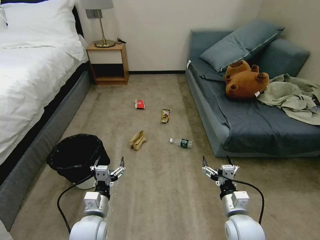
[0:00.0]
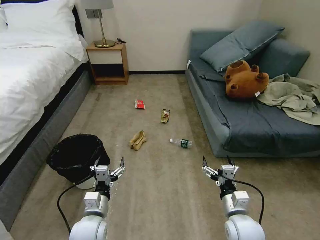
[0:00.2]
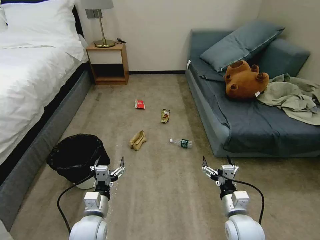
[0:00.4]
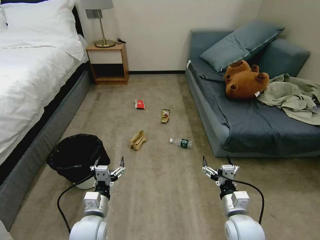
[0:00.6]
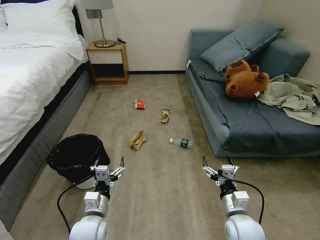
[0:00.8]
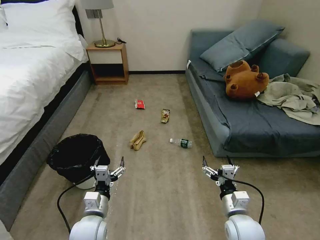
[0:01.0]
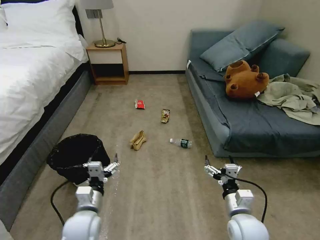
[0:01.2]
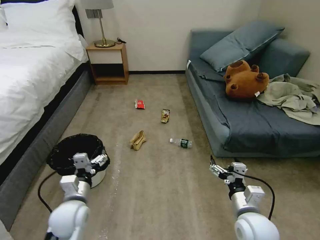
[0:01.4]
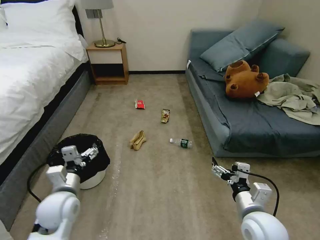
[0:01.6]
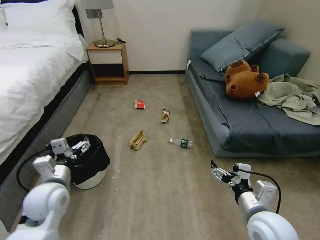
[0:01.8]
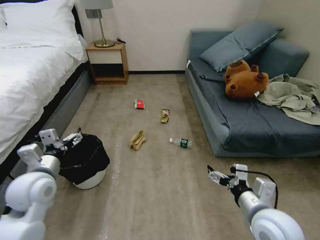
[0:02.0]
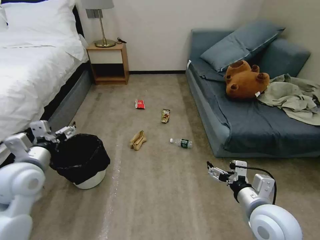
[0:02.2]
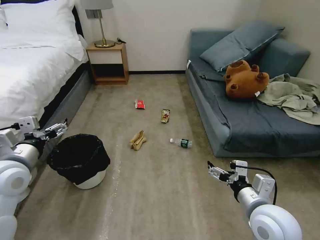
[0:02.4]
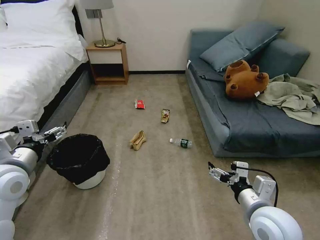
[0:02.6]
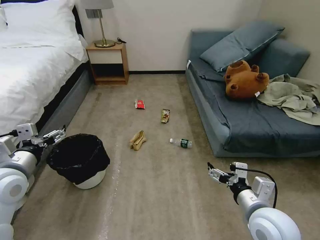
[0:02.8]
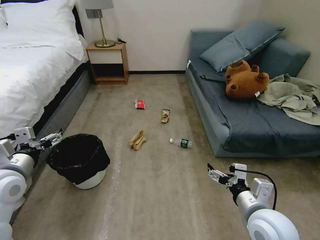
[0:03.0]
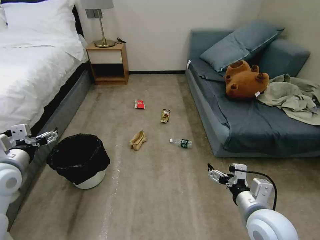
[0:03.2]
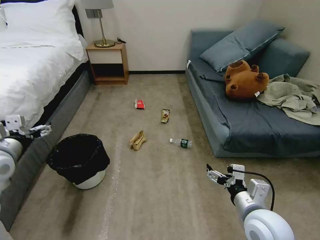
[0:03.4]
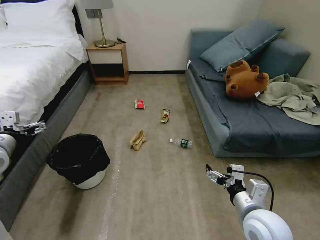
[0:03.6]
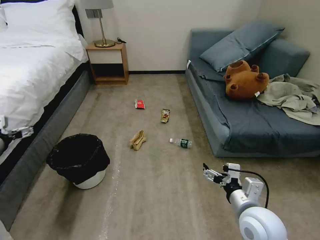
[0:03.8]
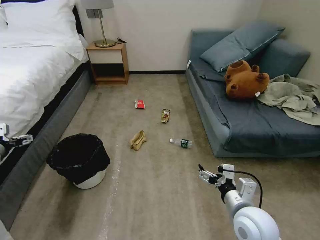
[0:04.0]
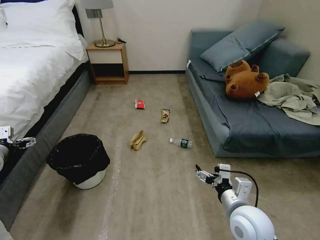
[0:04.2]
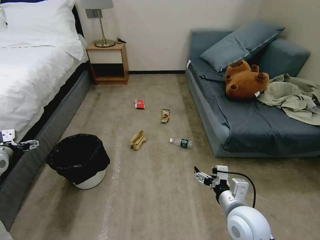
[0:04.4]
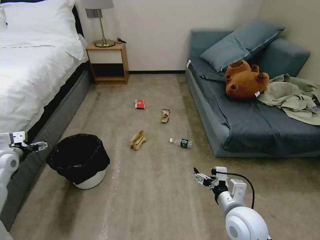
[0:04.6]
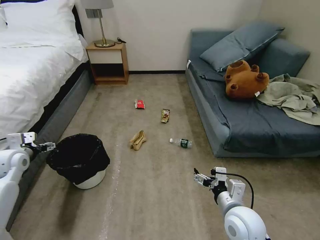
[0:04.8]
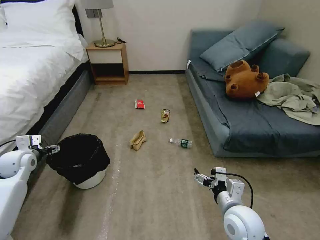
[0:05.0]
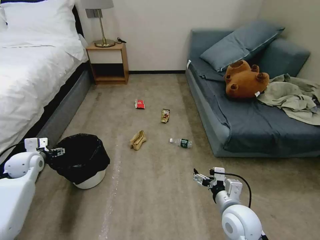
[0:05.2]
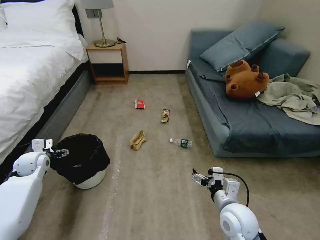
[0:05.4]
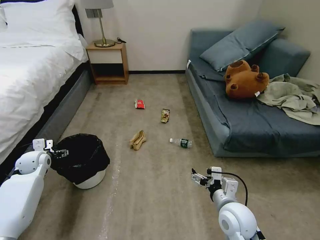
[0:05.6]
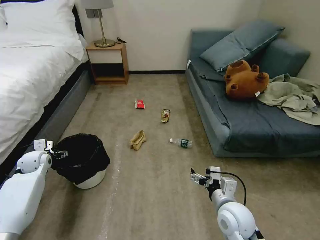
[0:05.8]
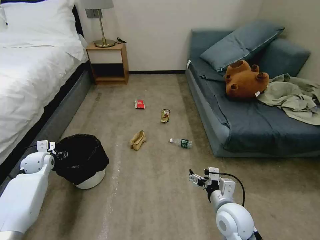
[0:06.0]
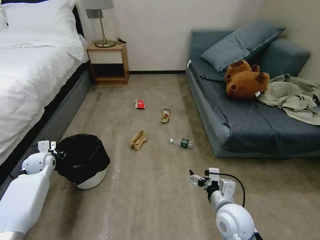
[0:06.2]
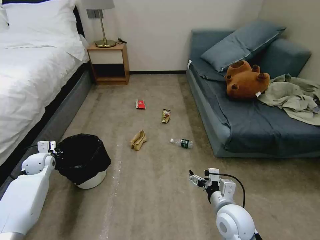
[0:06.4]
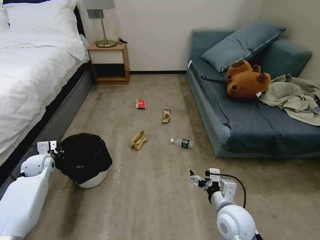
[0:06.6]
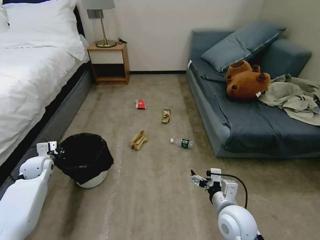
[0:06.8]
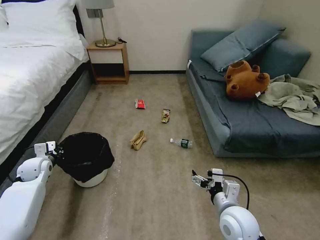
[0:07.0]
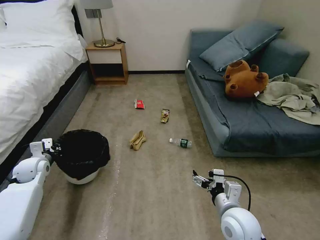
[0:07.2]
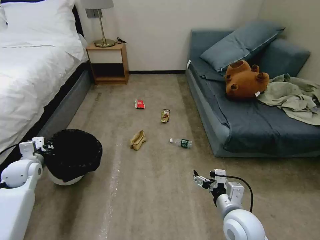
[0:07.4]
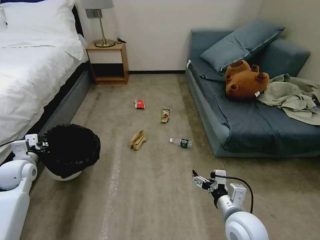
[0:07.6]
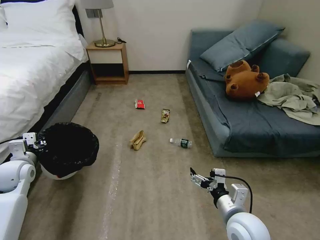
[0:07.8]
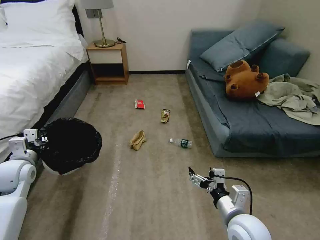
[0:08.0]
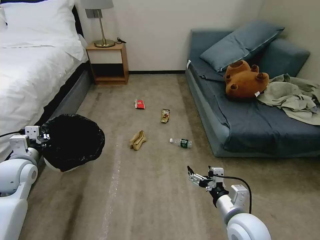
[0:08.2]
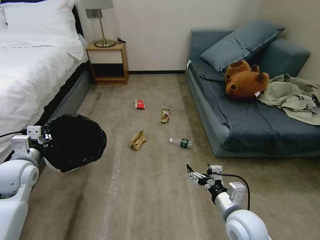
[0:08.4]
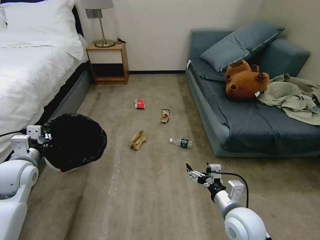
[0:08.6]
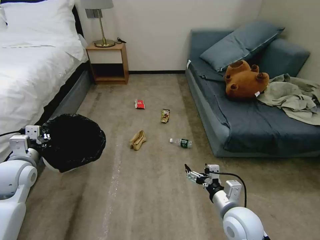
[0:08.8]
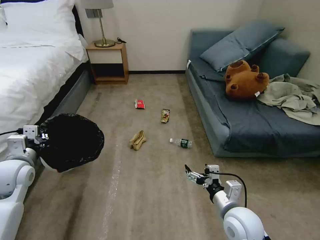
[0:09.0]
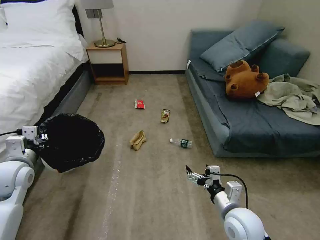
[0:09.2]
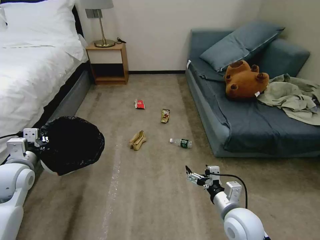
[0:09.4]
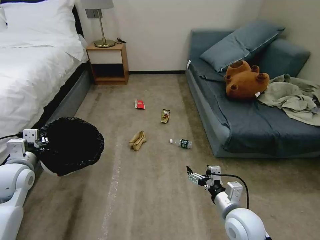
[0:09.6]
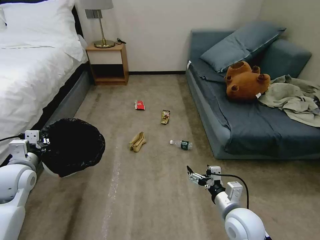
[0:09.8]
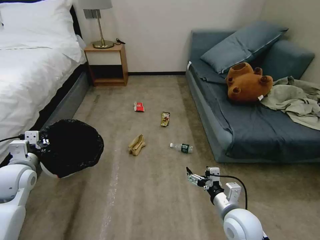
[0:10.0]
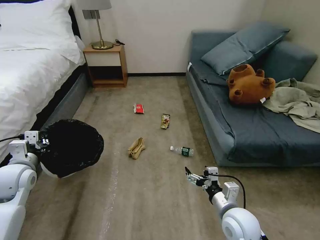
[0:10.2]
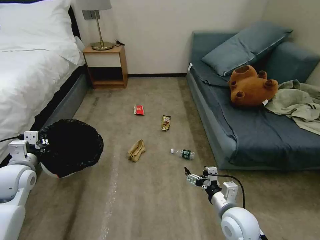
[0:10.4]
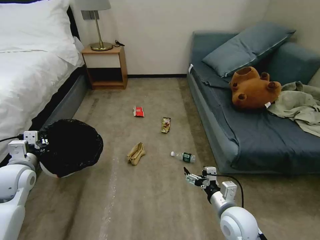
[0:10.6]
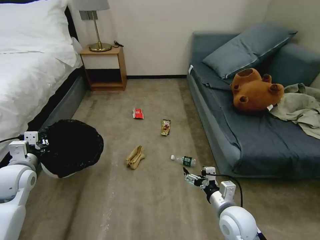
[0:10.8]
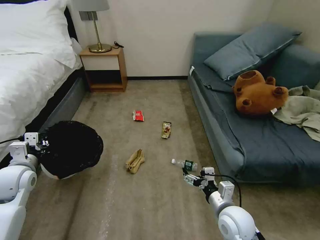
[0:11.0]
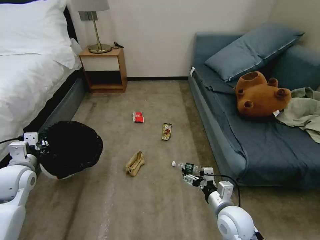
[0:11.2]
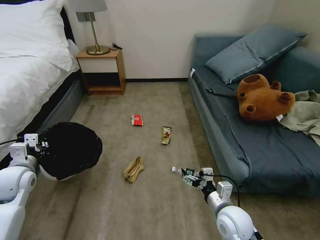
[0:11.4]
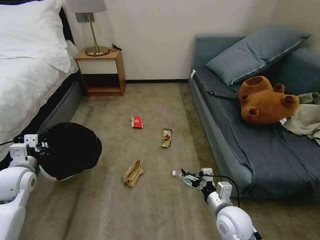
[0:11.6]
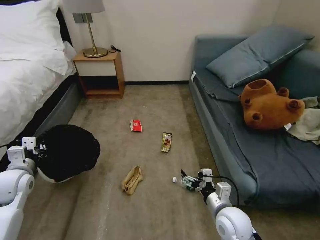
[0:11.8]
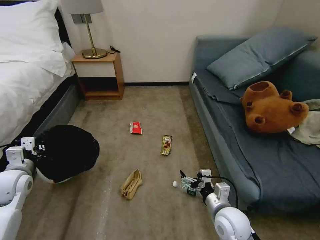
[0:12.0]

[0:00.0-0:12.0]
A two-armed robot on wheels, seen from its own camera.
Task of the whole recording: Pick up the trash bin, then pick up the garbage on the floor and place it into the trash bin.
0:01.6 to 0:03.0: The left gripper travels upward and to the left by approximately 15 cm.
0:03.0 to 0:04.4: The right gripper moves roughly 5 cm. The left gripper goes approximately 15 cm to the left and forward.
0:04.4 to 0:06.0: The left gripper shifts approximately 15 cm downward and forward.
0:06.0 to 0:07.6: The left gripper shifts about 10 cm backward and upward, and closes up.
0:07.6 to 0:09.0: The left gripper moves upward and to the right, roughly 10 cm.

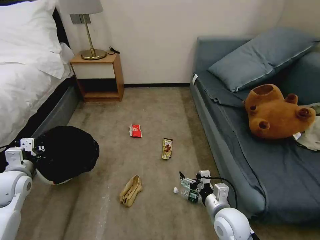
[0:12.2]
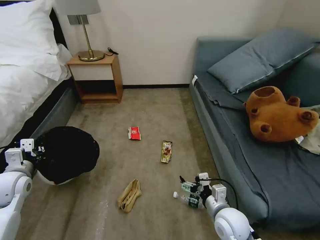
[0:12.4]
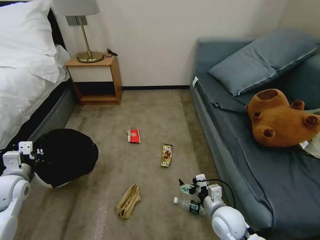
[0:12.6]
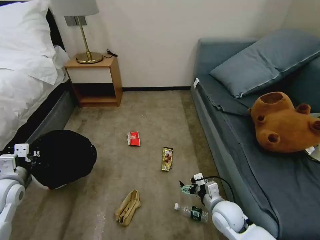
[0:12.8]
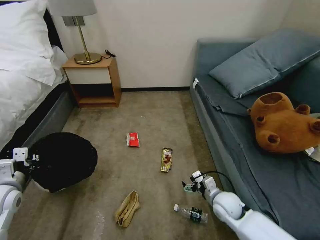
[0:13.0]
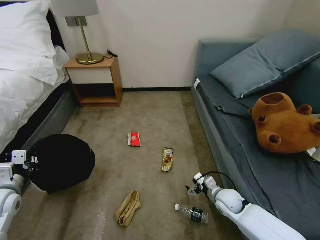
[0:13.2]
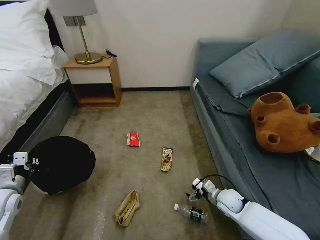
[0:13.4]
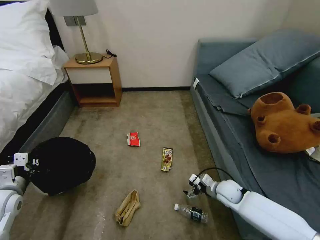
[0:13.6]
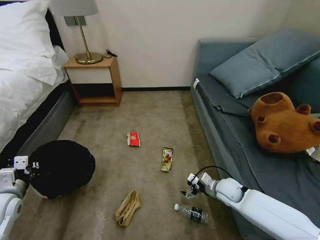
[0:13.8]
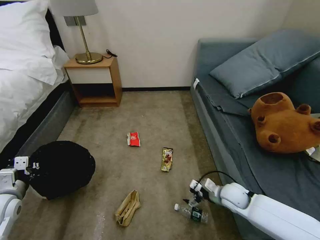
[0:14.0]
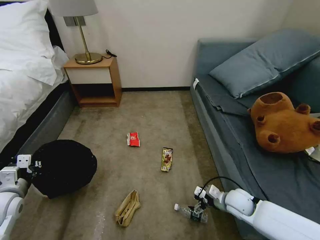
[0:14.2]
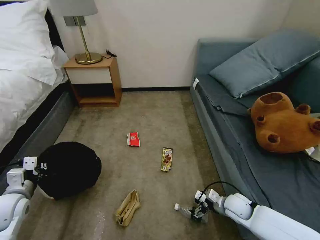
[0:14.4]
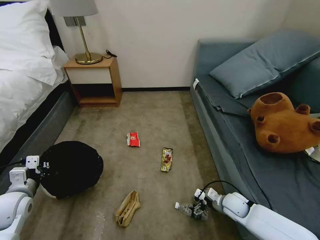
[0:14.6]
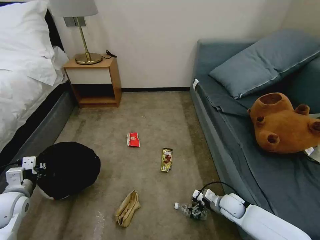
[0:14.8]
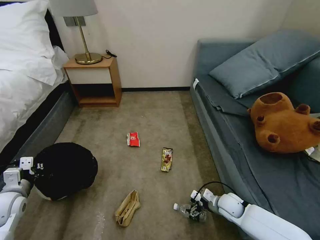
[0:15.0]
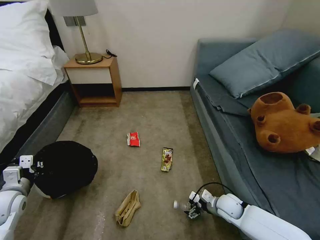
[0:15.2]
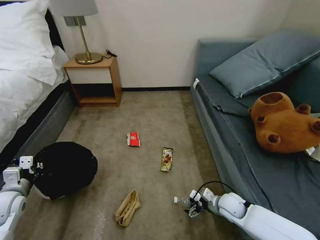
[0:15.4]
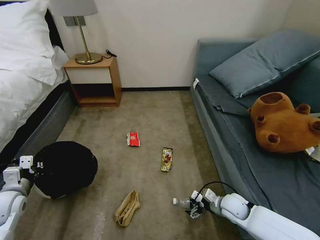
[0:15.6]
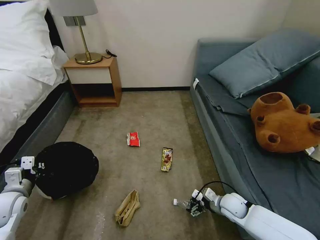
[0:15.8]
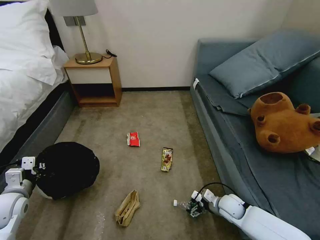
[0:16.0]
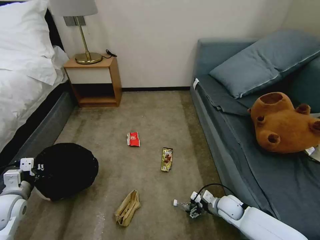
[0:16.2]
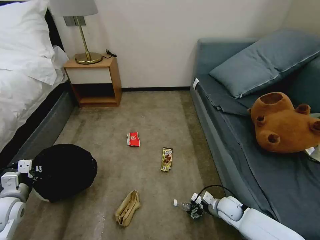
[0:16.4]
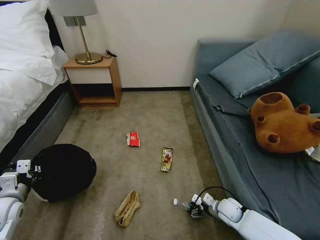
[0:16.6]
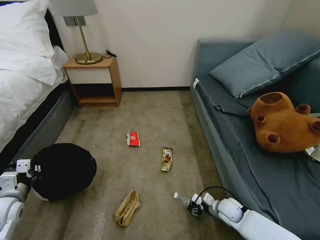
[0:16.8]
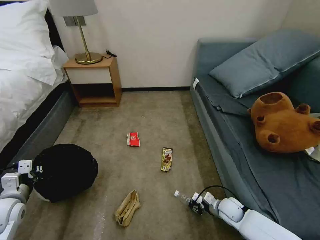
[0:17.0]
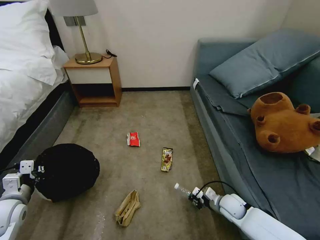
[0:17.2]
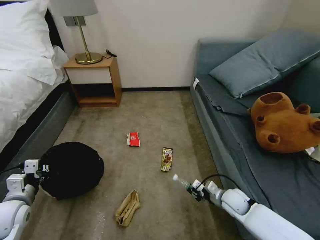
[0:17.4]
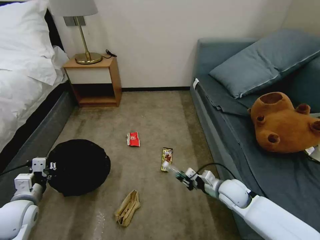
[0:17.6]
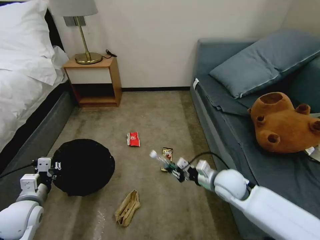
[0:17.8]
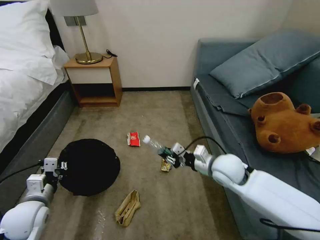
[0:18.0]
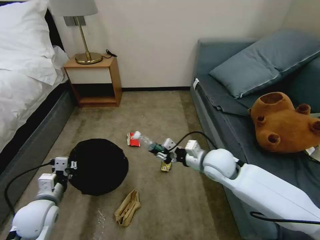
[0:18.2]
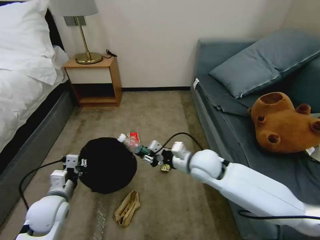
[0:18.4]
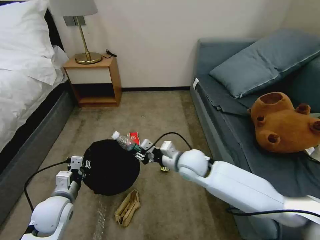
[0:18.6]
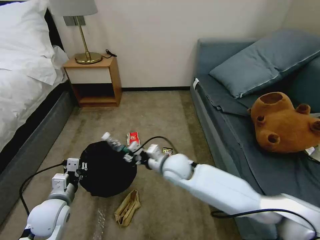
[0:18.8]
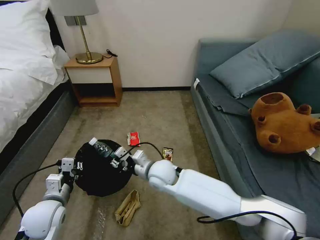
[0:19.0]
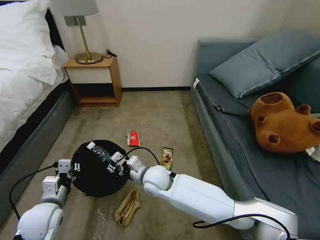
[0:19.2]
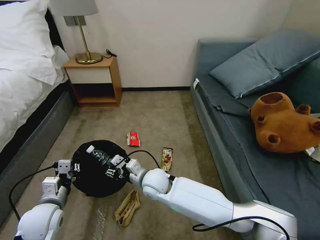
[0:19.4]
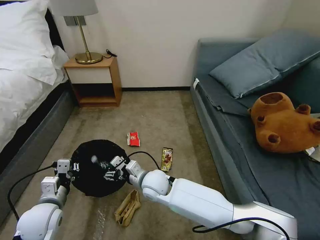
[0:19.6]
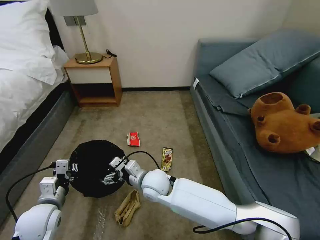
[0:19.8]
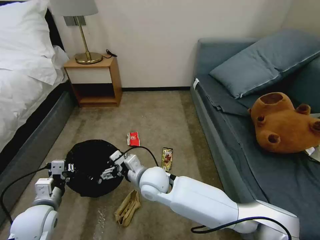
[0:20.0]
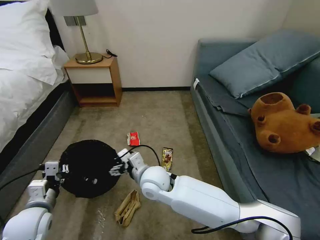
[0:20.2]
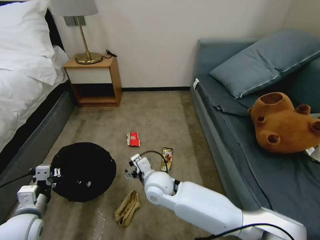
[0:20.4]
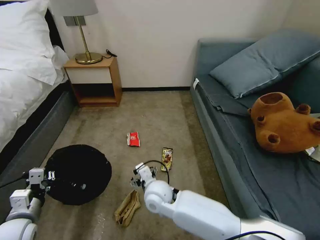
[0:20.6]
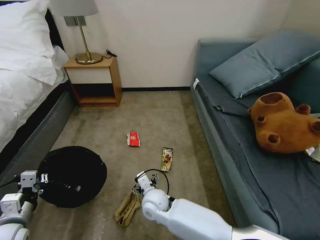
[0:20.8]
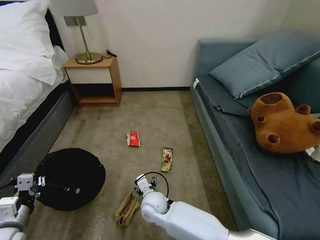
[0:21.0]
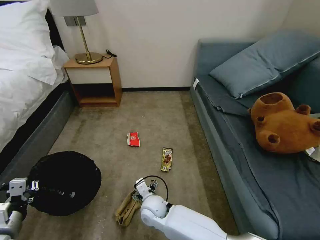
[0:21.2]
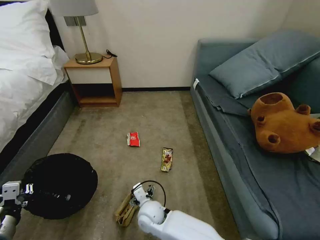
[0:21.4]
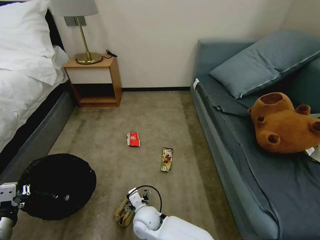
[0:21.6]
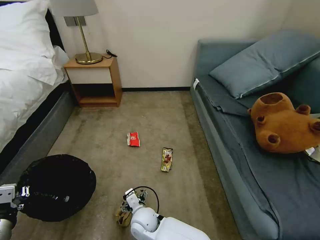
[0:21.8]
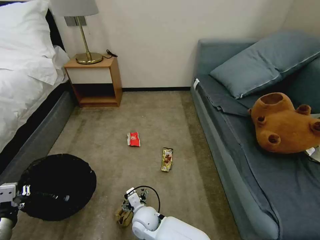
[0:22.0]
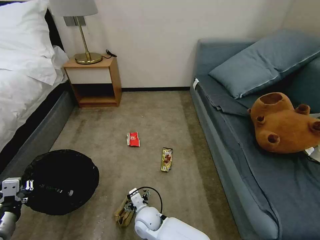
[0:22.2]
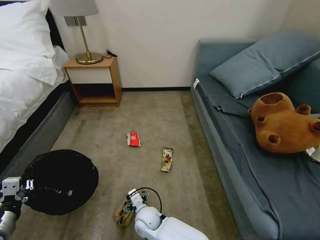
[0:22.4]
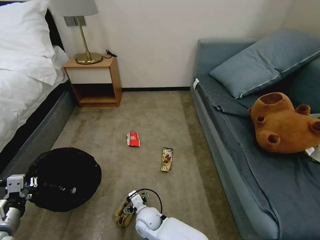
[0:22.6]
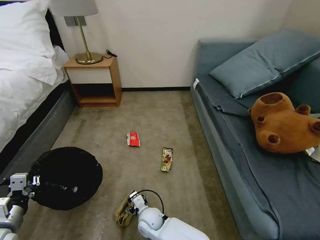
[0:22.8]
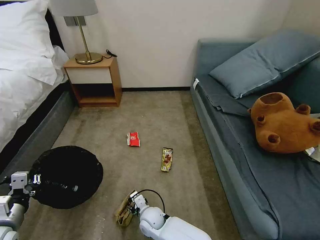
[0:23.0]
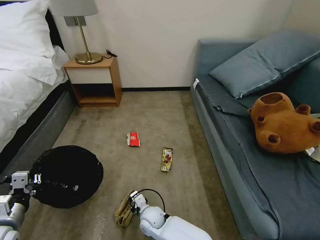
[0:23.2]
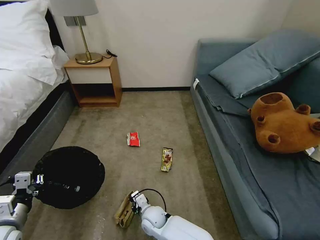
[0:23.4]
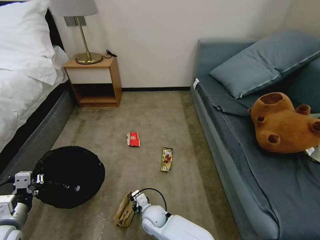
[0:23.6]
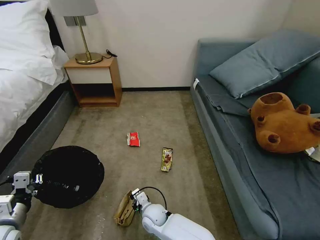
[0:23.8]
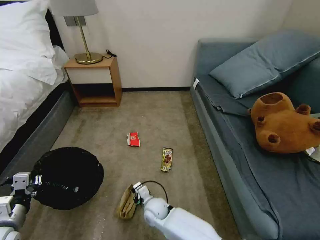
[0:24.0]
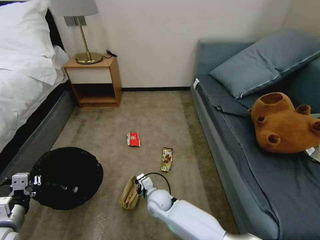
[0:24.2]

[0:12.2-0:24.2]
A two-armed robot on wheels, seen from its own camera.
Task of the whole recording: Pick up the trash bin, then pick up the garbage on the floor and place it into the trash bin.
0:12.2 to 0:13.8: The left gripper goes approximately 5 cm backward. Meanwhile the right gripper is displaced forward, downward and to the right by approximately 15 cm.
0:13.8 to 0:15.2: The right gripper is displaced downward by roughly 5 cm.
0:15.2 to 0:16.6: The grippers make only small movements.
0:16.6 to 0:18.2: The left gripper heads to the right, covering roughly 10 cm. The right gripper goes roughly 25 cm upward, and closes its fingers.
0:18.2 to 0:19.8: The right gripper heads to the left, covering approximately 20 cm, and opens.
0:19.8 to 0:21.2: The right gripper heads downward, covering about 10 cm; the left gripper goes roughly 10 cm backward and to the left.
0:21.2 to 0:22.6: The right gripper heads downward, covering some 5 cm.
0:22.6 to 0:24.2: The right gripper travels forward by about 5 cm, and closes its fingers.
